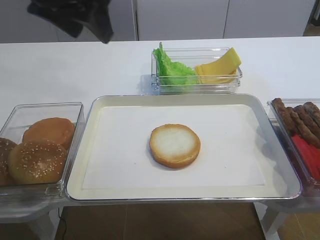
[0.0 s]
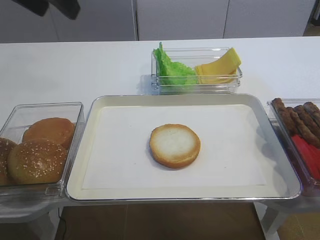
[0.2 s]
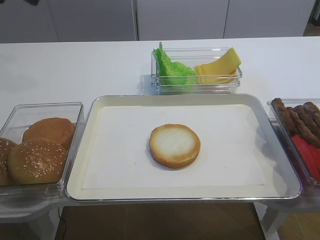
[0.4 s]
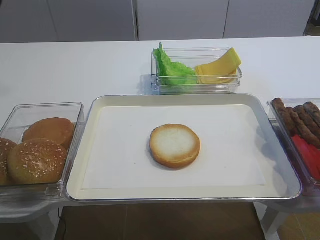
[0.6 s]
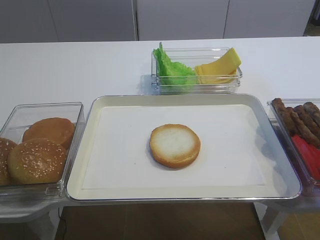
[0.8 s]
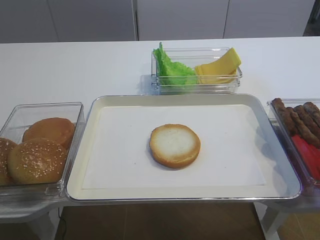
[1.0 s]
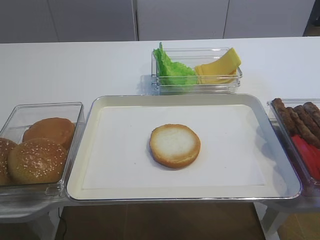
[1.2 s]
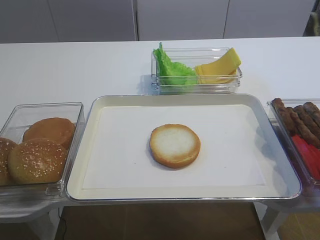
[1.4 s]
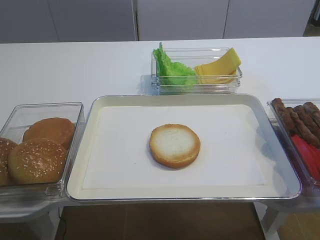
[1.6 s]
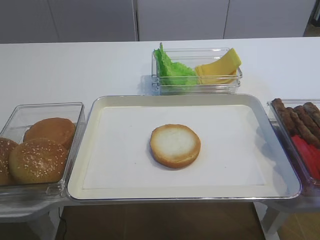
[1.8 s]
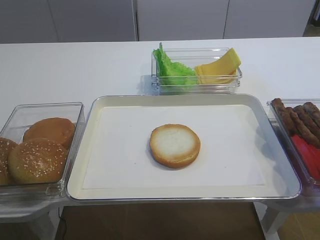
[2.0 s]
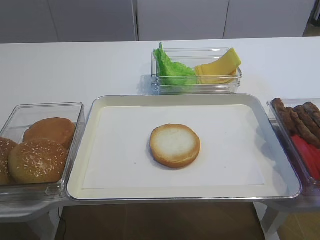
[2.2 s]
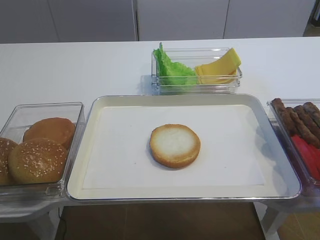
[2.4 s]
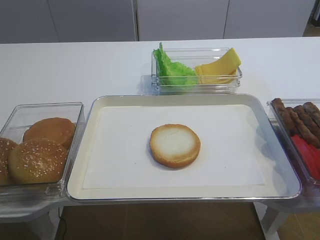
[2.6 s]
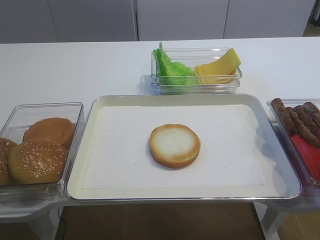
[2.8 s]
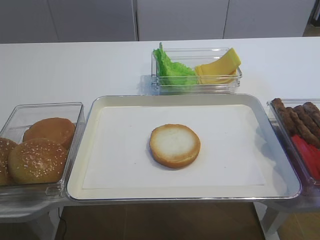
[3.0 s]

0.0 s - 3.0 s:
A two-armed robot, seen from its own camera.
0.0 s - 1.6 s: The left gripper goes approximately 35 cm backward and to the left.

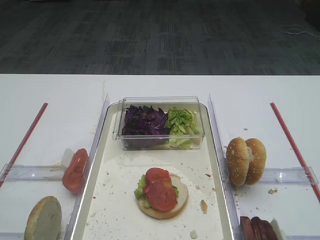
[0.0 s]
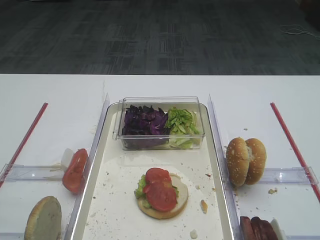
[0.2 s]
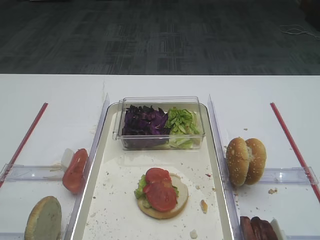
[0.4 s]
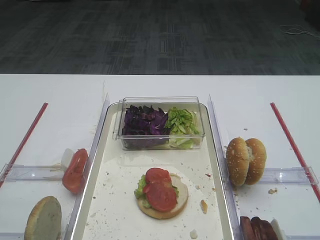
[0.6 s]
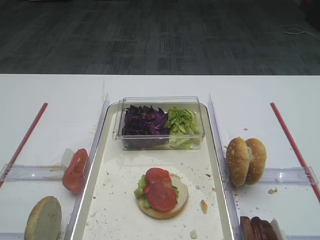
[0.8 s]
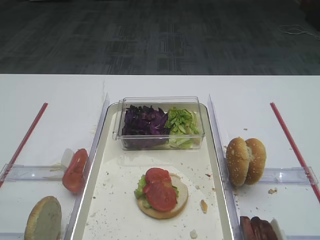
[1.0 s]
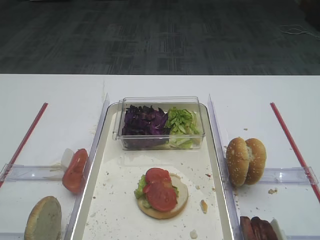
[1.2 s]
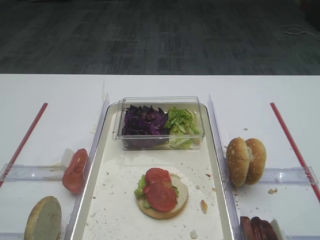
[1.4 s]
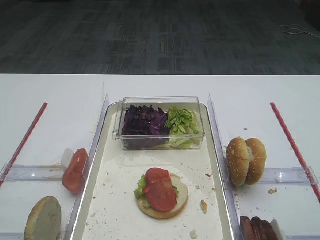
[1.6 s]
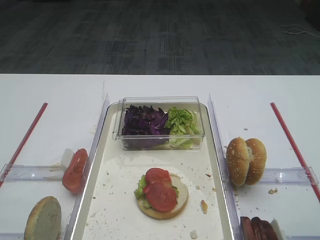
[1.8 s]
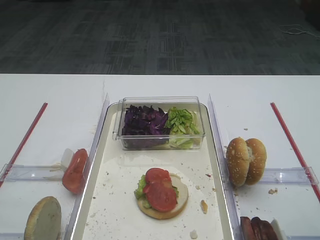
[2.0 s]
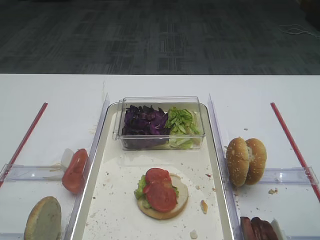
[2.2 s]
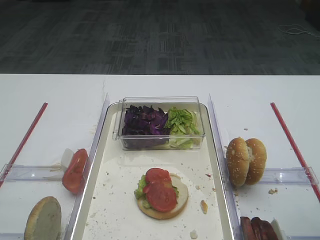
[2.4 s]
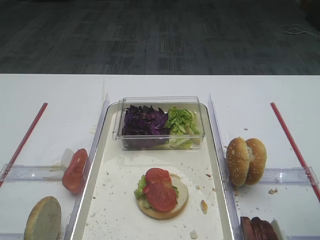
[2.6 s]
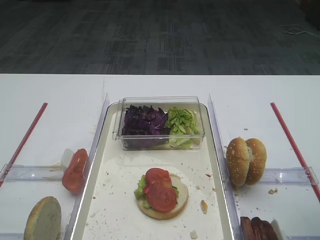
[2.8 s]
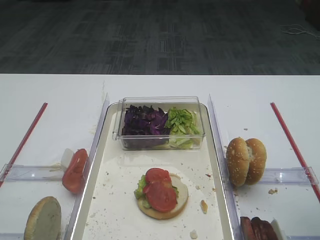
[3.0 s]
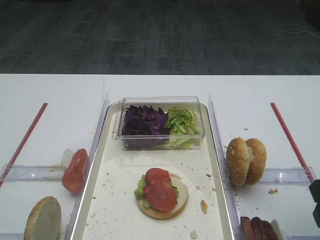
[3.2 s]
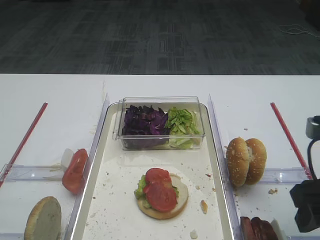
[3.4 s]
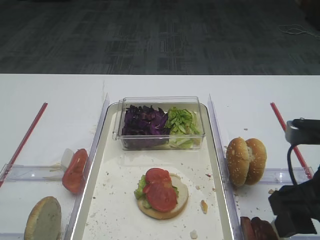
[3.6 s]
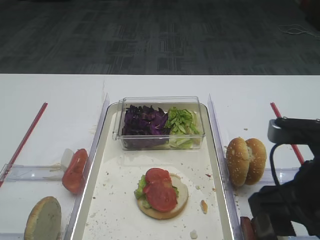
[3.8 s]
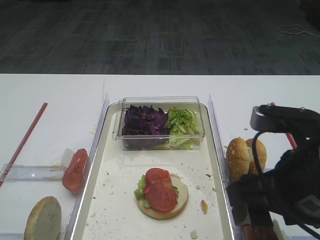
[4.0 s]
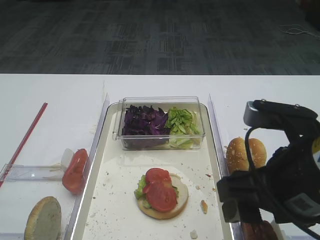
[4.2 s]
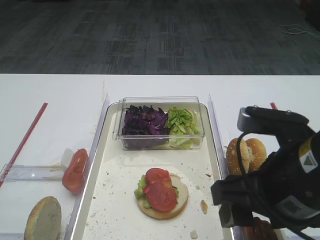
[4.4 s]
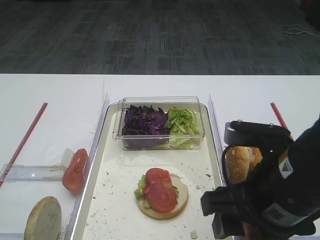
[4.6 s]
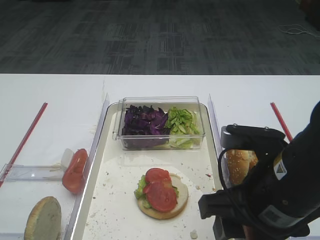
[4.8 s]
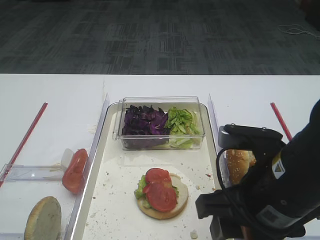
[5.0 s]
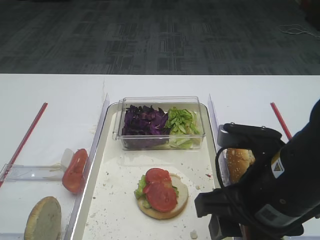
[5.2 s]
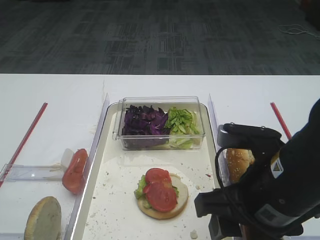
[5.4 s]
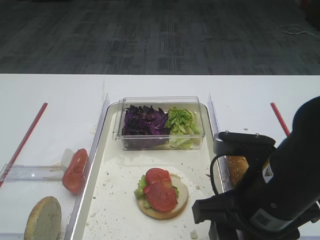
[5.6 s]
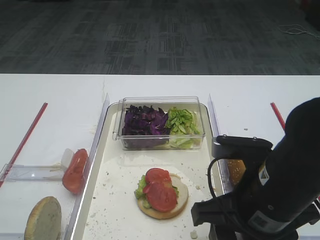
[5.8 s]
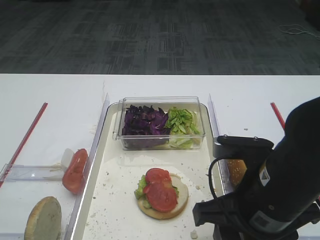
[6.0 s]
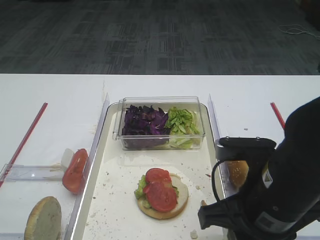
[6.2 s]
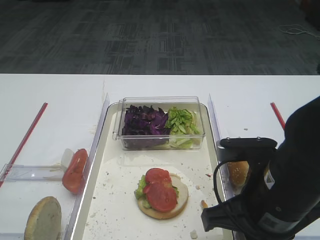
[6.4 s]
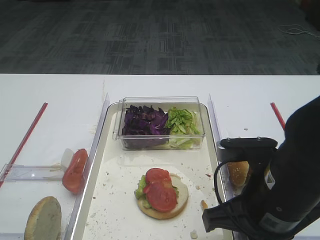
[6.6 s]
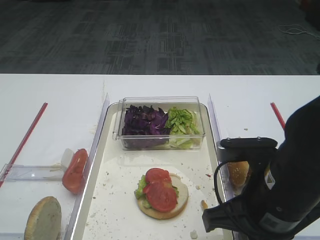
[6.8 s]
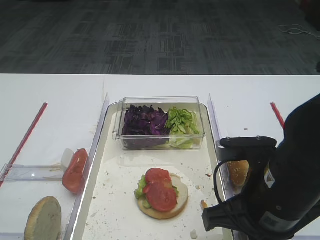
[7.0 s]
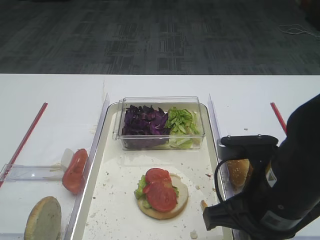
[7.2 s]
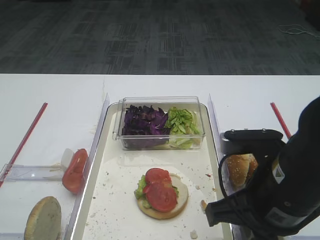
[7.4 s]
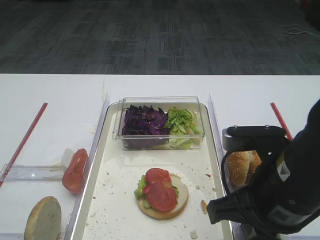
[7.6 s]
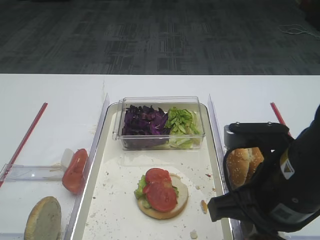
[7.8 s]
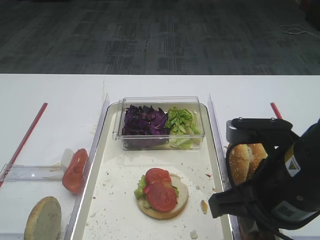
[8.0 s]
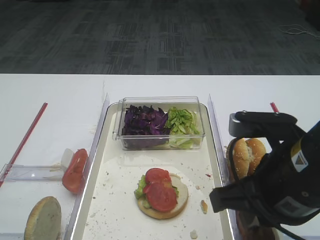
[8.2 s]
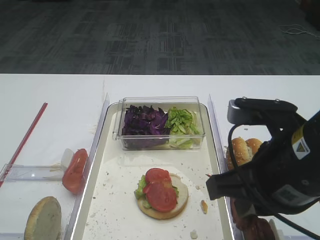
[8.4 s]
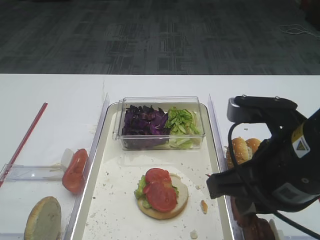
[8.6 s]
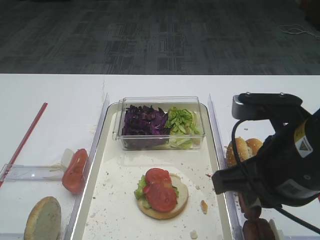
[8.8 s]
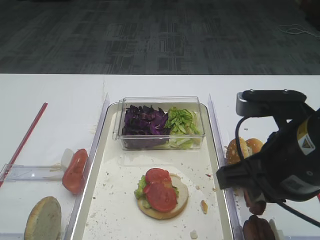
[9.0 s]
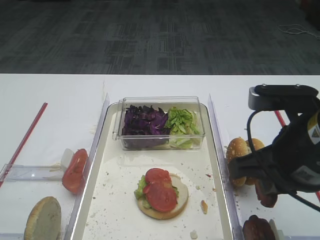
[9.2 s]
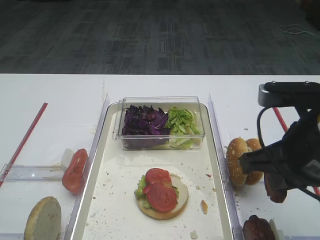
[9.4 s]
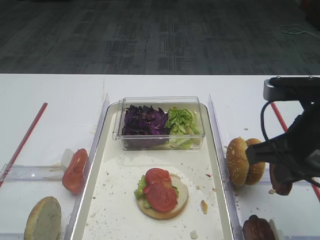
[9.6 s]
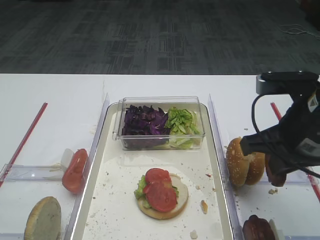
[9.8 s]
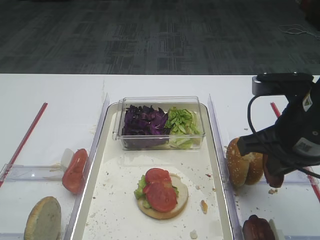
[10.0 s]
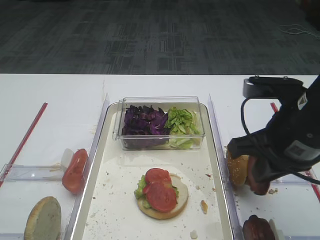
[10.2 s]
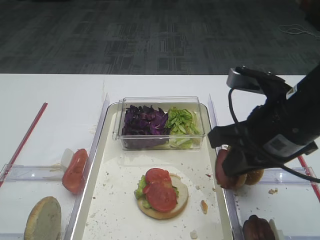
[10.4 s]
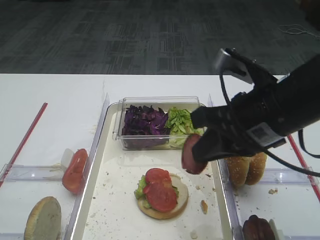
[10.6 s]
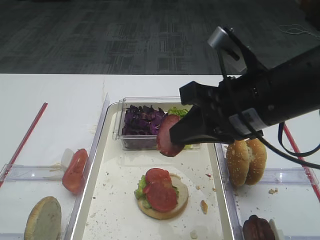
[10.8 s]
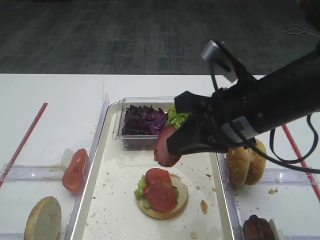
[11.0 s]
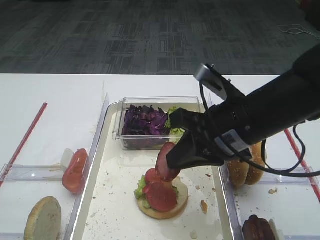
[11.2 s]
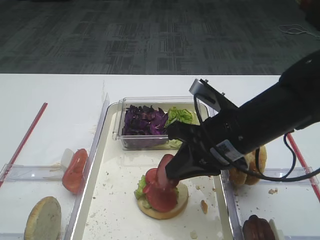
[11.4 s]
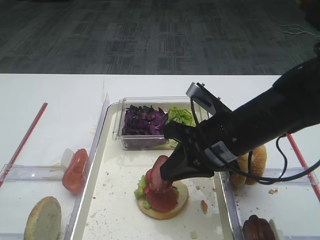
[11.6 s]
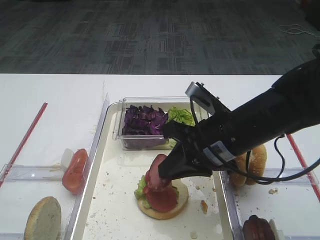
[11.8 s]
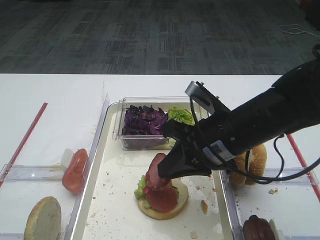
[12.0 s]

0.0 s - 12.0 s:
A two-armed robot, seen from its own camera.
Step, 0.0 s - 8.0 s: Pick up the cutlet with the right gripper.
3.0 s - 4.4 s: The right gripper heads to the left, covering about 15 cm.
4.4 s - 6.0 s: The grippers move only a little.
6.0 s - 7.6 s: The right gripper closes its fingers.
7.6 s - 9.0 s: The grippers move only a little.
9.0 s - 10.4 s: The right gripper is displaced forward by roughly 5 cm.
10.4 s - 12.0 s: The right gripper heads downward, covering approximately 5 cm.

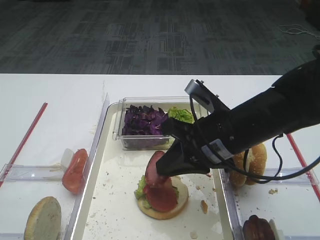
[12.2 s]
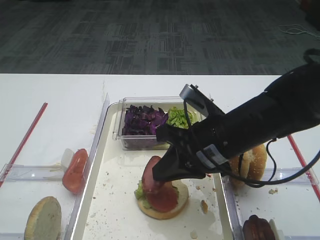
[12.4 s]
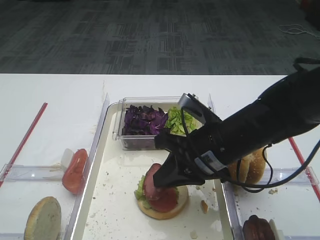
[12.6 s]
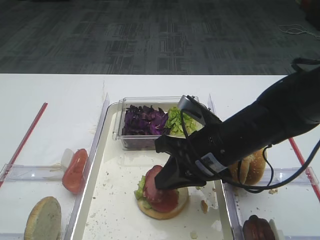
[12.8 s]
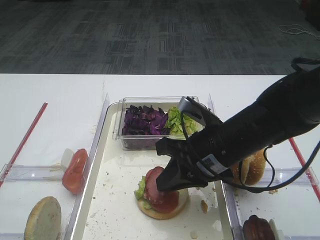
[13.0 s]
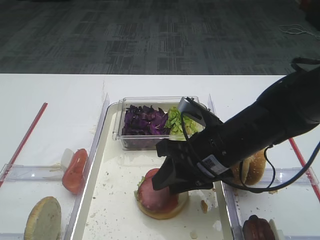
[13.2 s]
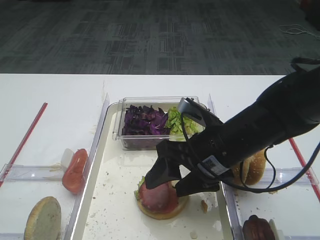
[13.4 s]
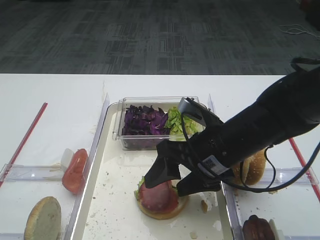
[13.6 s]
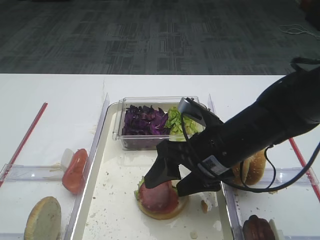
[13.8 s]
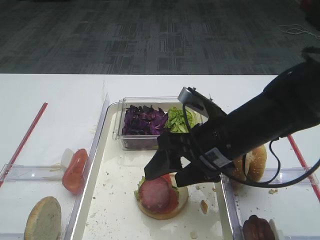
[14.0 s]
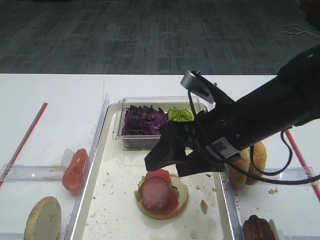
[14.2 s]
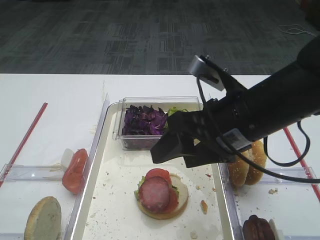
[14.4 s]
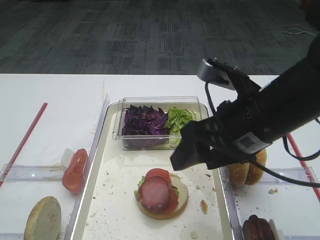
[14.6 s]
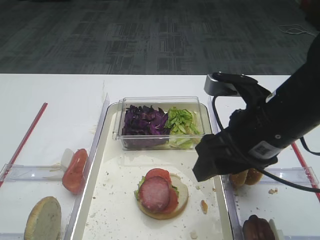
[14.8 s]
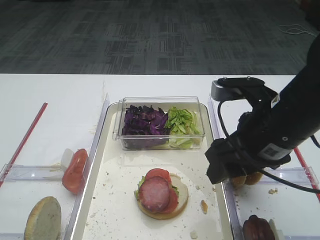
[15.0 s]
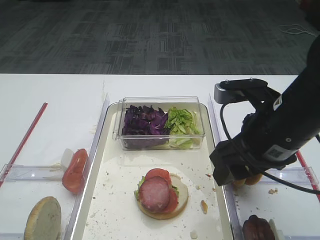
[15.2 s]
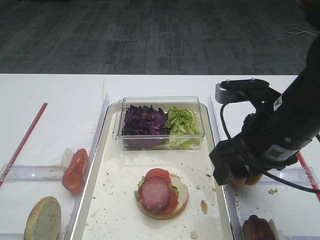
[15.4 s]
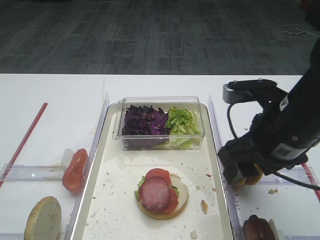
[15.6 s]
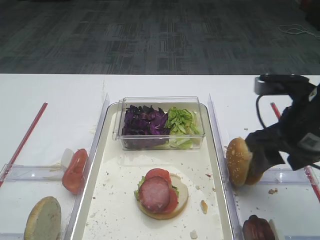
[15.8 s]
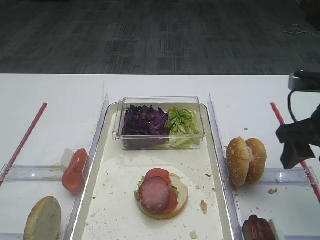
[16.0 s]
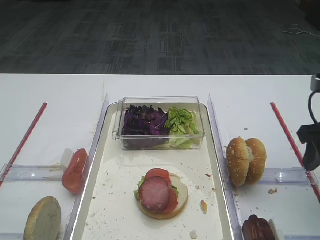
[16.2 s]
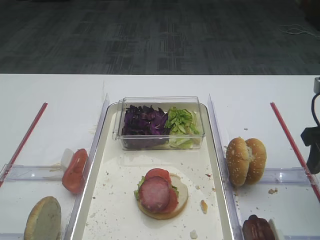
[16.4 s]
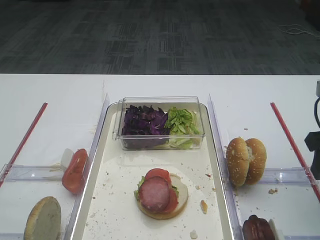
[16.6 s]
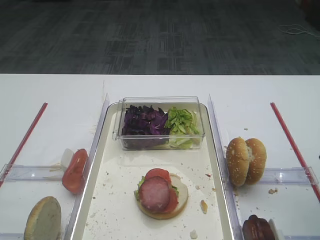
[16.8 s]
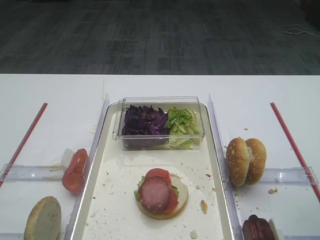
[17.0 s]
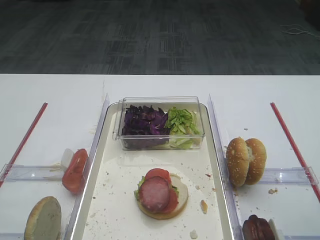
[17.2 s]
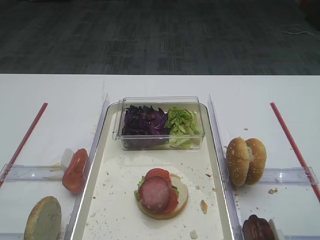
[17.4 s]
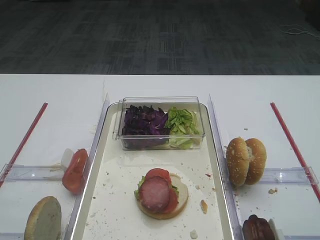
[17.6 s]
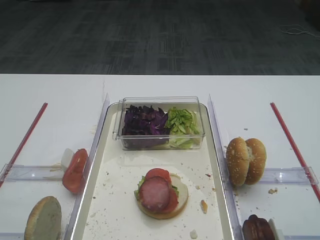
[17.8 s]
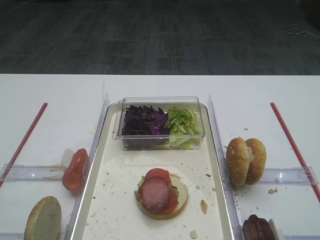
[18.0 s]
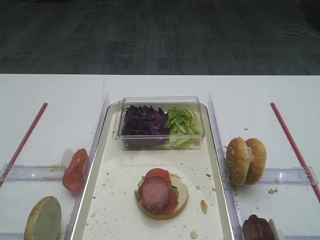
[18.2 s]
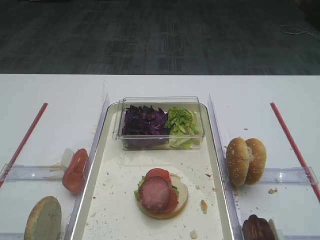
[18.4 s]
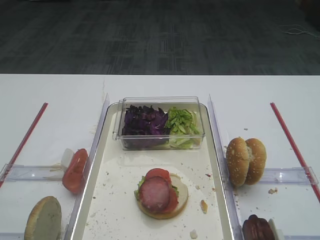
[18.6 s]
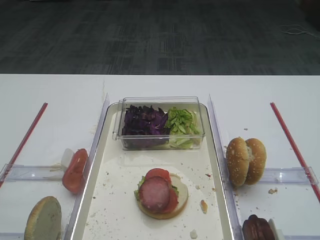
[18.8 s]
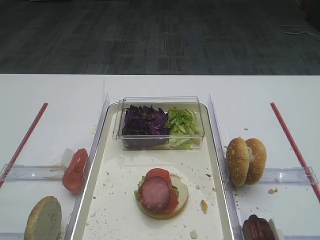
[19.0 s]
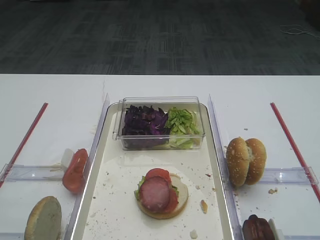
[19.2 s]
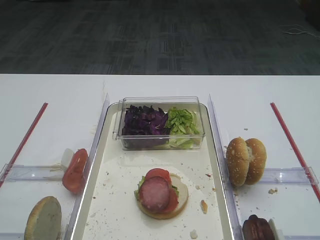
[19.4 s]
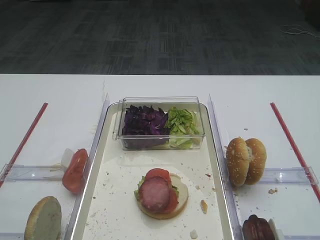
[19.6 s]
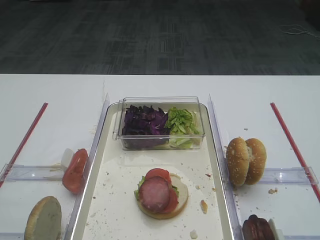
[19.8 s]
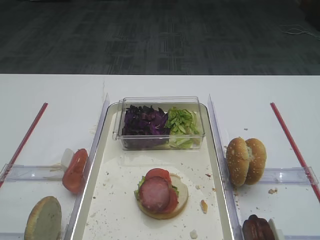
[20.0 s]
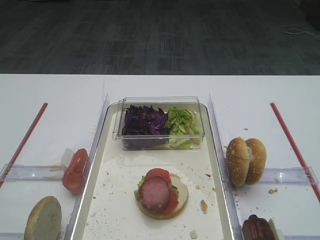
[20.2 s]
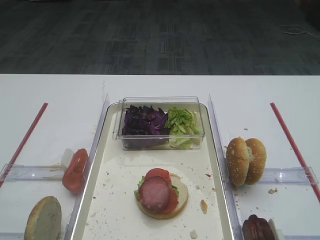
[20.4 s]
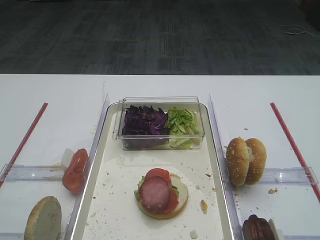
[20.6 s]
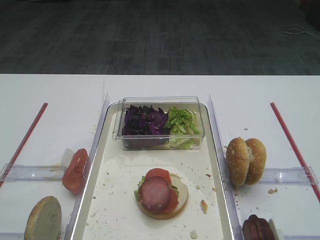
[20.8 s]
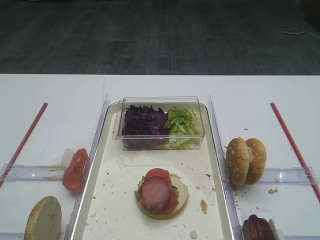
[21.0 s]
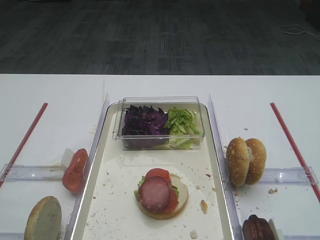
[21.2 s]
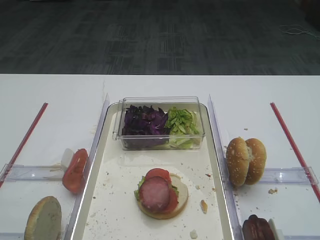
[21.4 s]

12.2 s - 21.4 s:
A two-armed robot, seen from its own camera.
12.2 s - 13.8 s: The right gripper opens.
13.8 s - 15.2 s: The right gripper goes some 10 cm upward and to the right.
15.2 s - 16.8 s: The right gripper moves to the right, some 15 cm.
19.8 s - 21.4 s: The two grippers keep their place.
